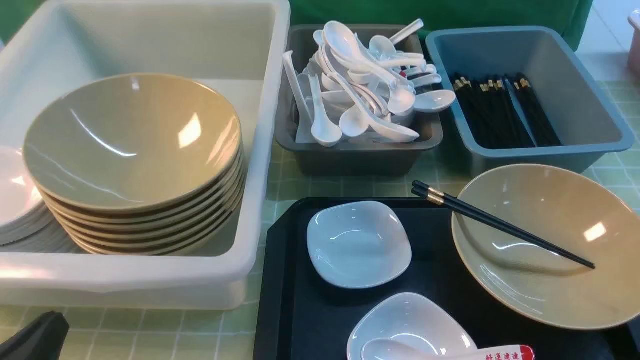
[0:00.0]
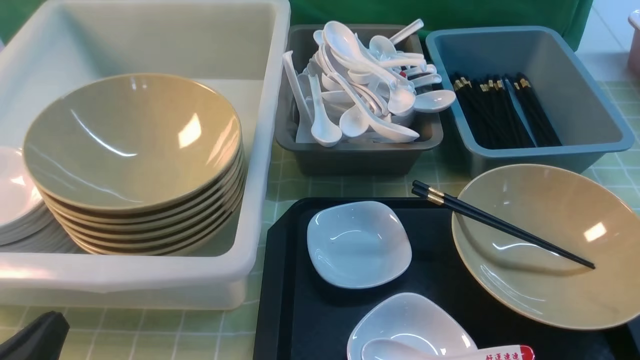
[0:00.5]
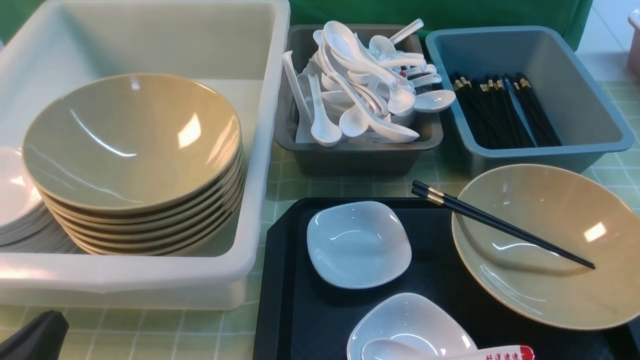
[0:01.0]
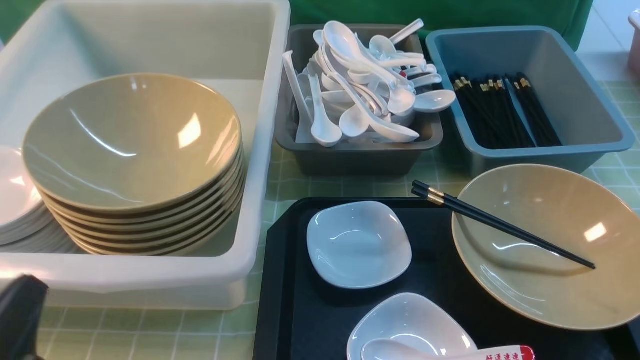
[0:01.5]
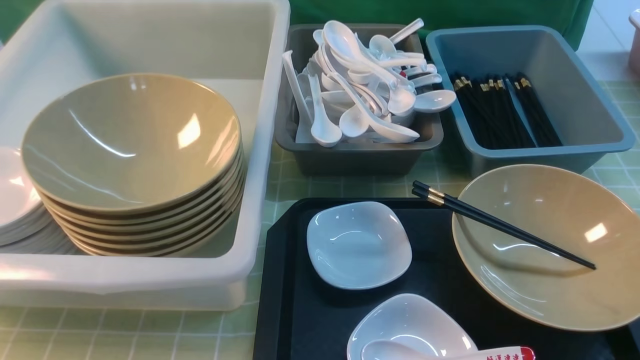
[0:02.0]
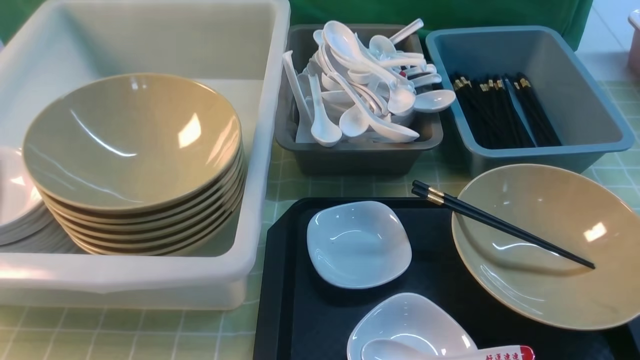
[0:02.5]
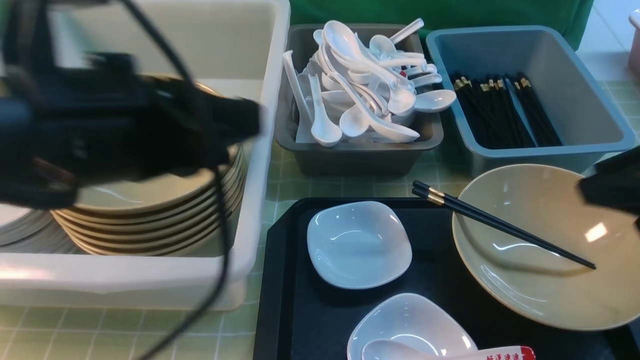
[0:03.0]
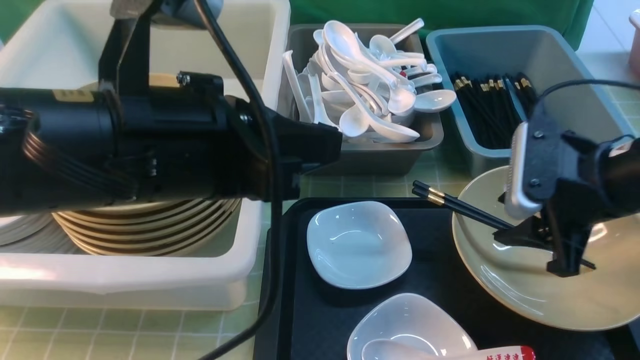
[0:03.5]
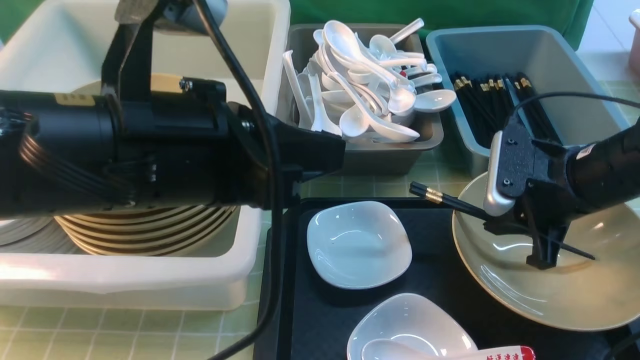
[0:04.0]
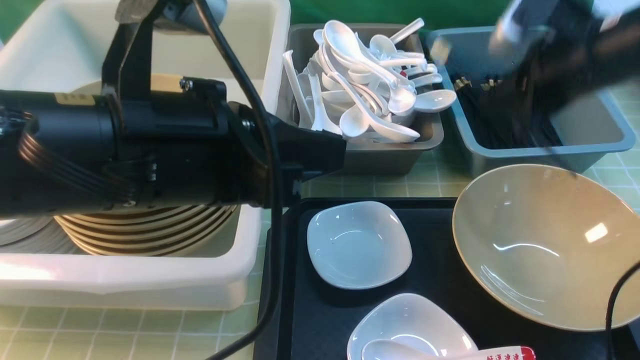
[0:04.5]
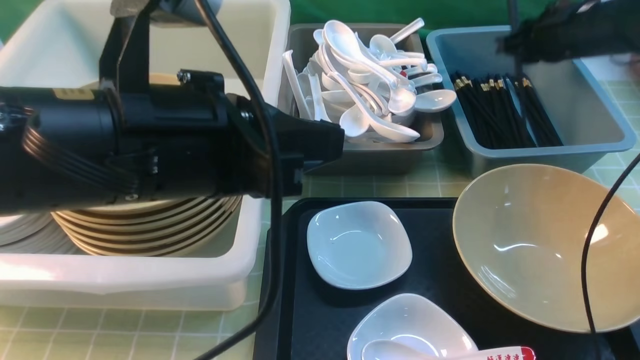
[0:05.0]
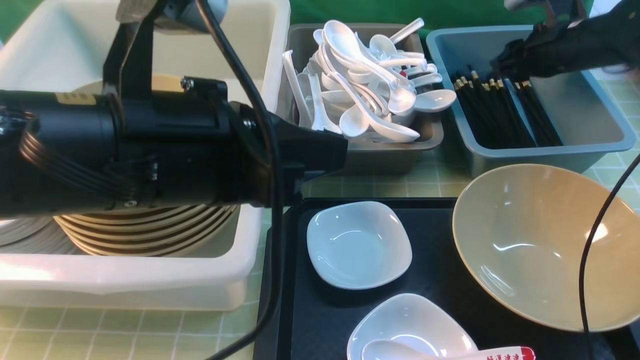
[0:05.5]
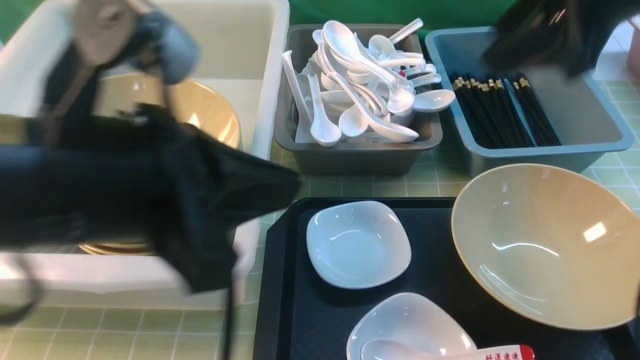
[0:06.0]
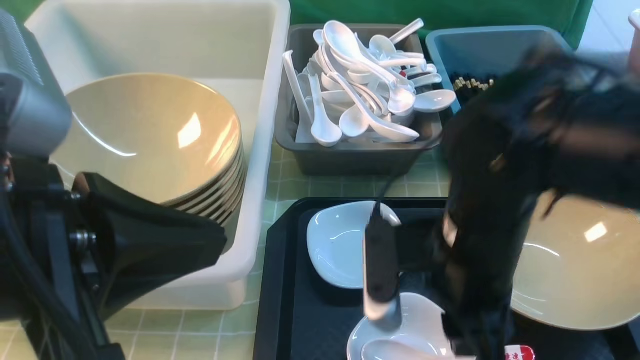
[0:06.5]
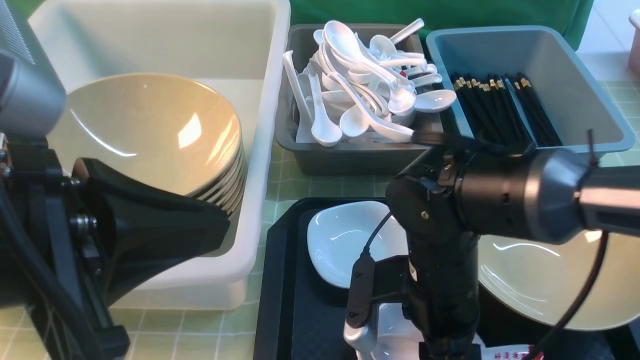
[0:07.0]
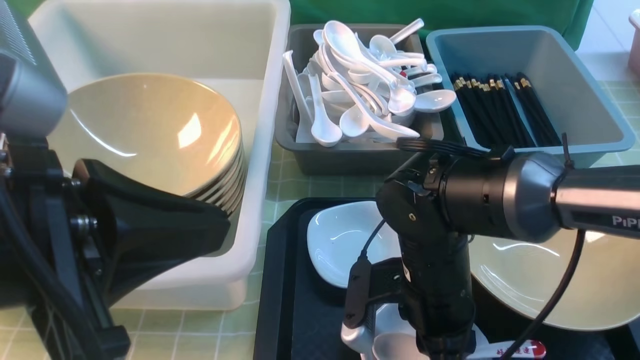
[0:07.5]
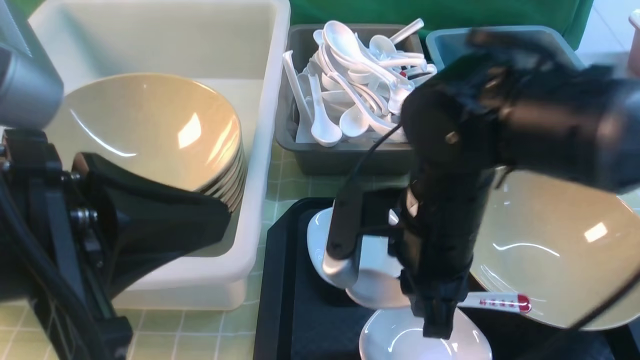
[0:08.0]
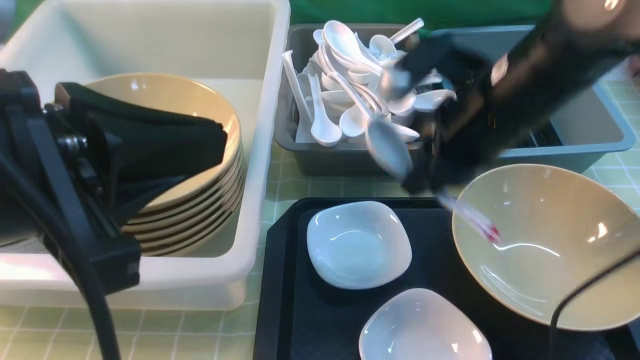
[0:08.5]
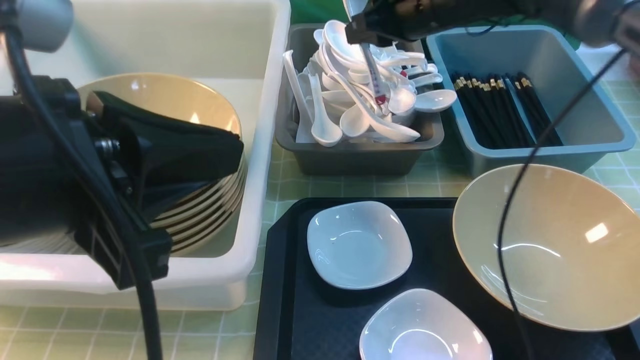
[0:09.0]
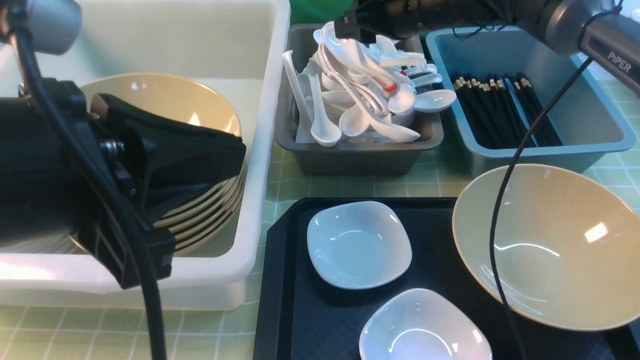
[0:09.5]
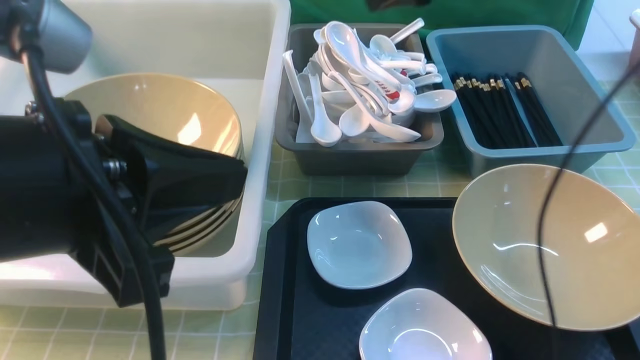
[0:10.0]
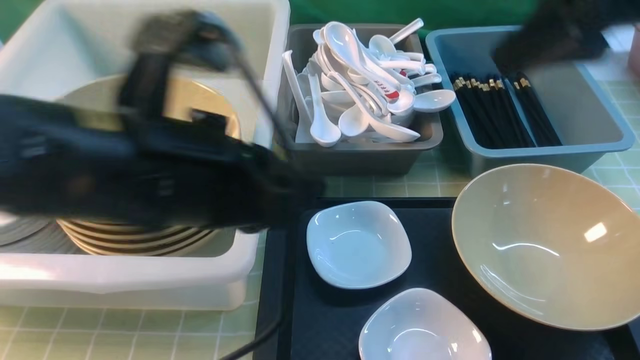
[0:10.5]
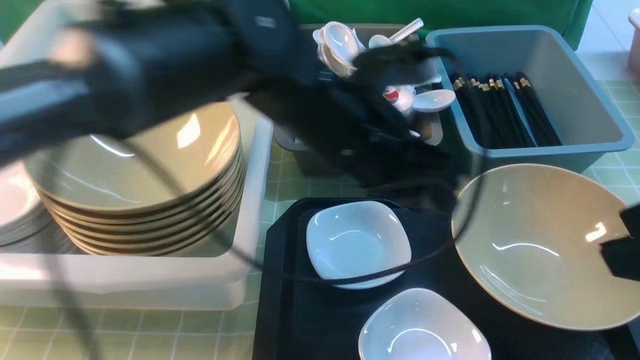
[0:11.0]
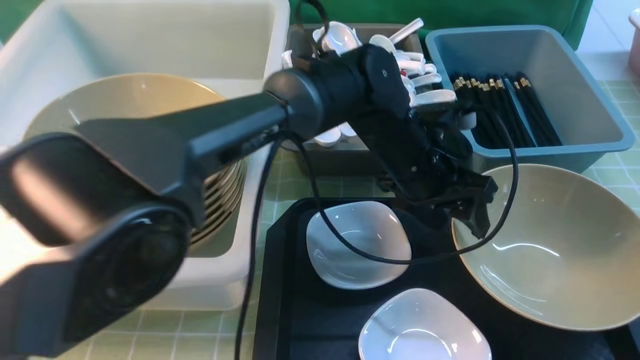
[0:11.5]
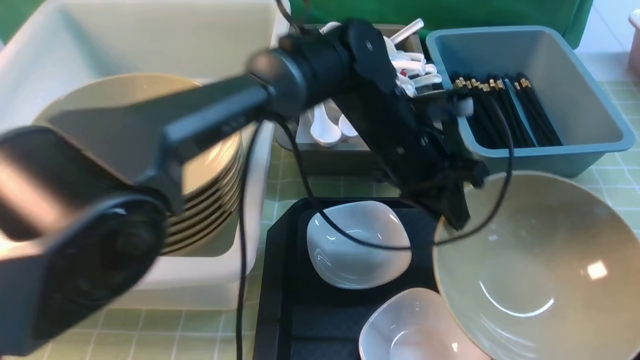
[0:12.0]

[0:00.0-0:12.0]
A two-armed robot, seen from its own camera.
Task of the whole recording: on green table put chopsticks spoon bowls plates into blue grey white boxes.
Step, 0.0 to 4.5 s: use the right arm to grab the chopsticks.
Step, 5.0 to 5.5 s: use the right arm to put the chopsticks into the small storage box on the right.
Step, 6.0 to 7.5 s: use the right arm to grab the soup spoon in the middle.
Step, 8.0 to 9.5 s: use the right arm to put the soup spoon into the small storage box in the middle.
0.0 to 2.0 s: The grippers both shift upward by some 15 cm.
2.0 to 4.0 s: The left gripper heads to the right and forward, covering roughly 20 cm. Meanwhile the right gripper shifts roughly 30 cm forward.
4.0 to 6.0 s: The right gripper is displaced upward by about 15 cm, and moves approximately 15 cm forward and comes back.
6.0 to 8.0 s: The right gripper shifts roughly 20 cm downward, to the left and backward, and closes up.
8.0 to 10.0 s: The right gripper goes some 25 cm forward, upward and to the right, and opens.
10.0 to 12.0 s: The left gripper goes about 35 cm forward, to the right and downward, and opens, then closes again. Meanwhile the right gripper moves backward, roughly 35 cm, and closes its fingers.

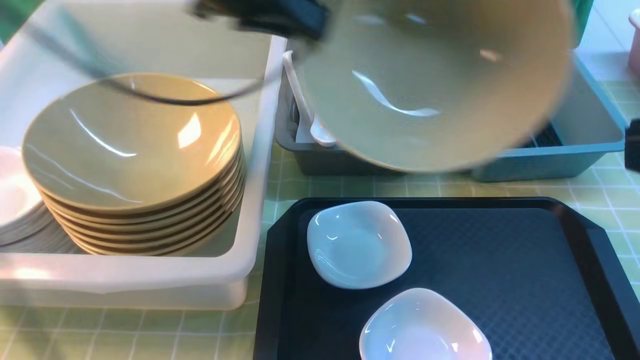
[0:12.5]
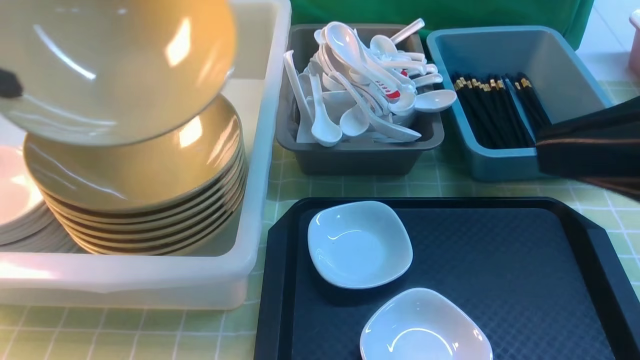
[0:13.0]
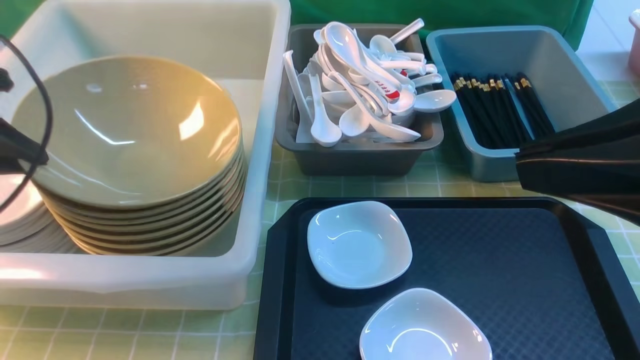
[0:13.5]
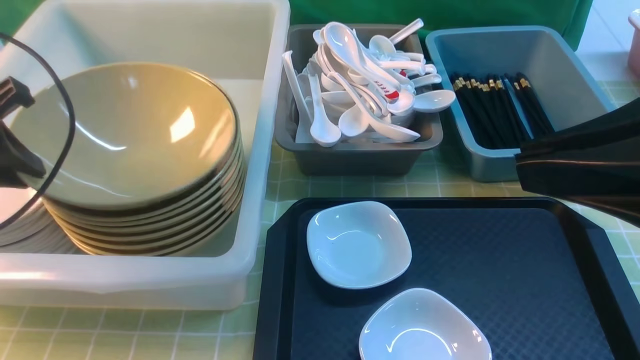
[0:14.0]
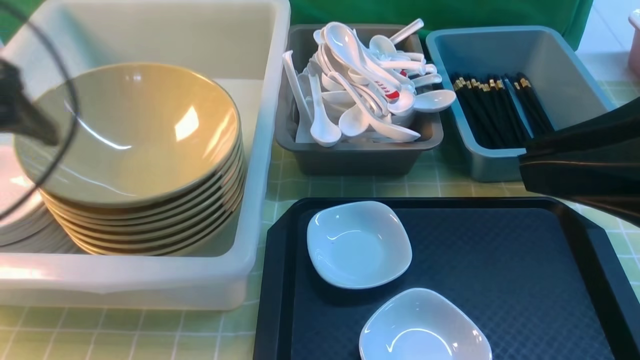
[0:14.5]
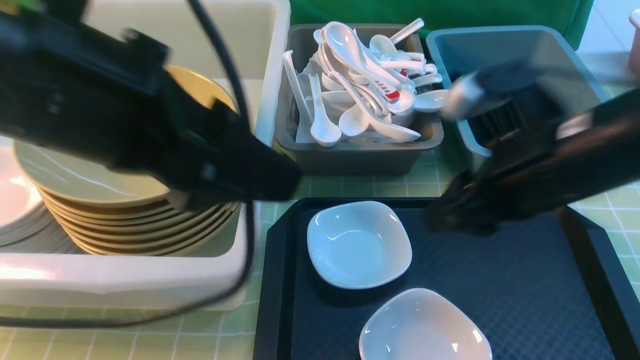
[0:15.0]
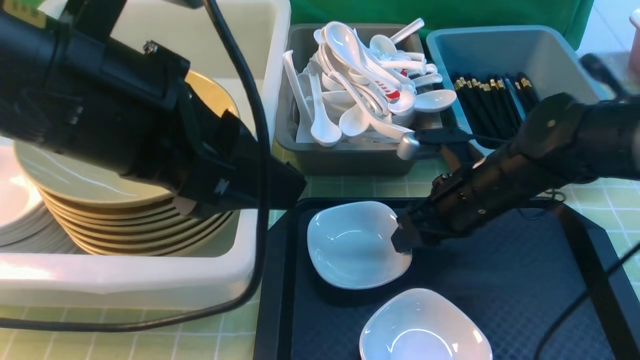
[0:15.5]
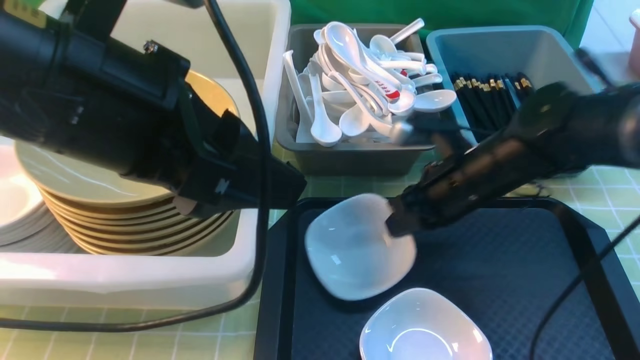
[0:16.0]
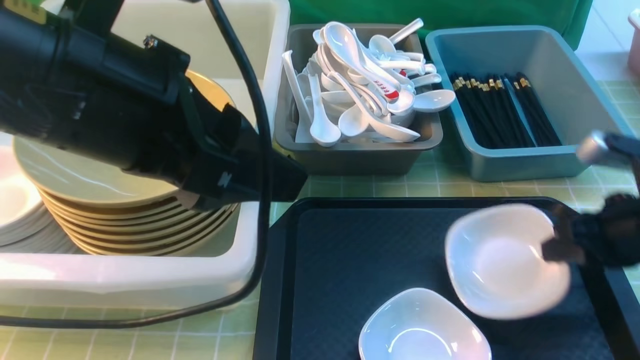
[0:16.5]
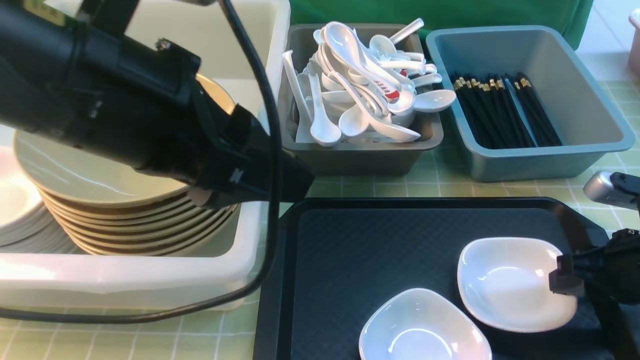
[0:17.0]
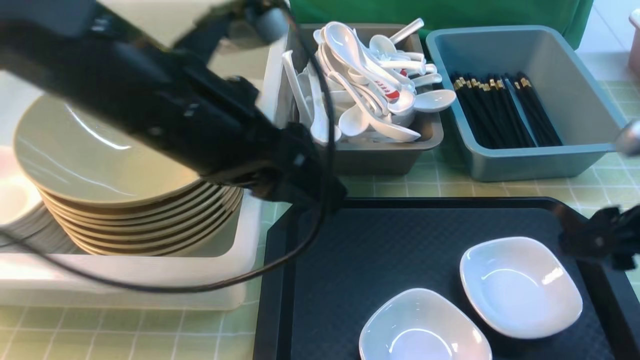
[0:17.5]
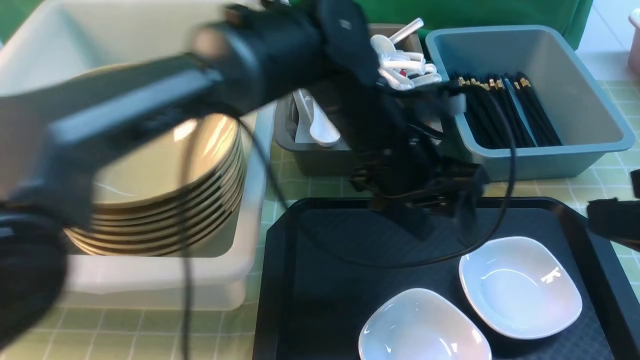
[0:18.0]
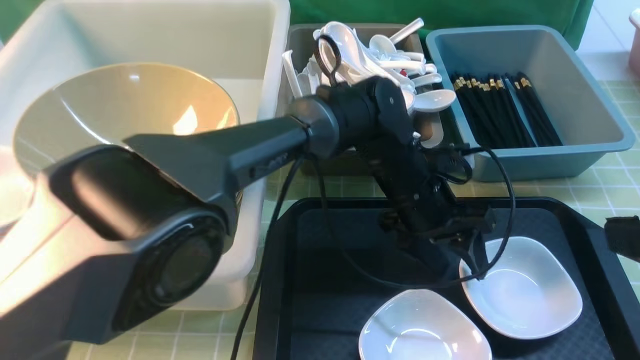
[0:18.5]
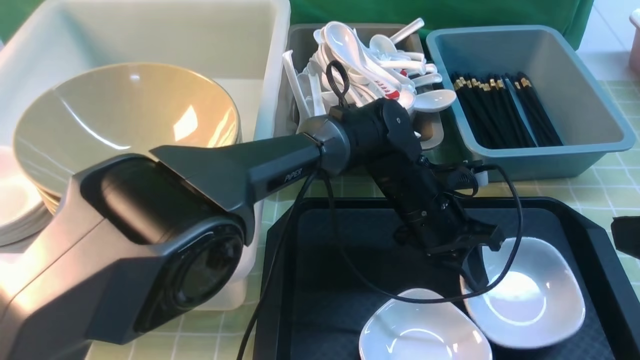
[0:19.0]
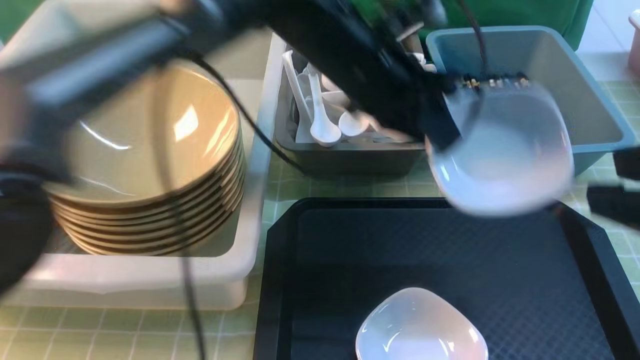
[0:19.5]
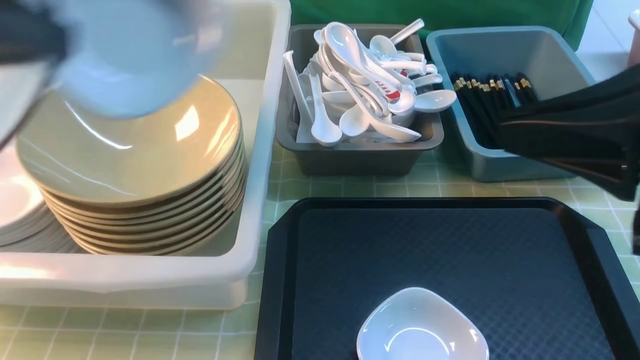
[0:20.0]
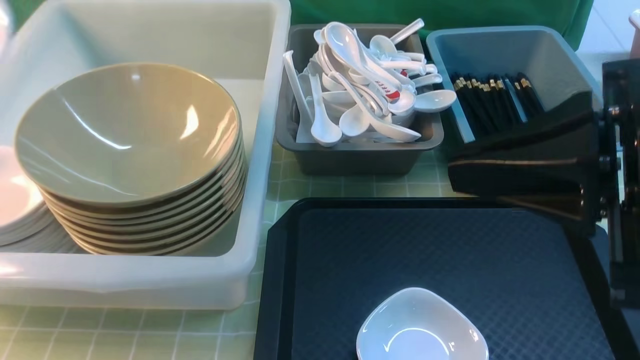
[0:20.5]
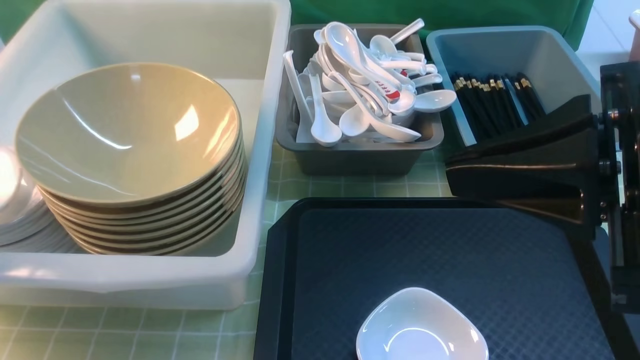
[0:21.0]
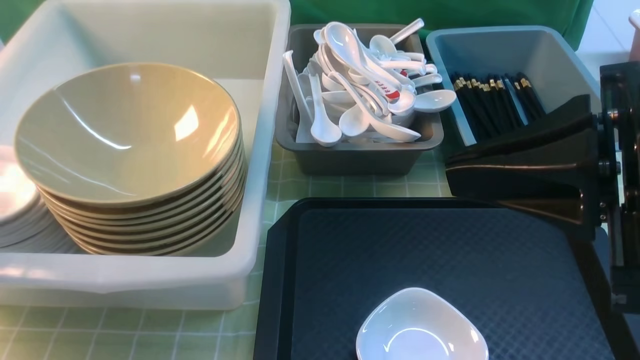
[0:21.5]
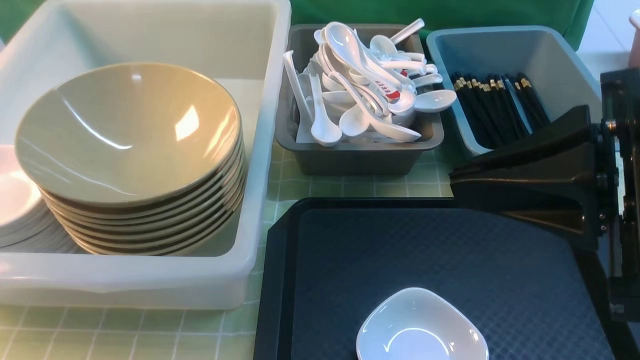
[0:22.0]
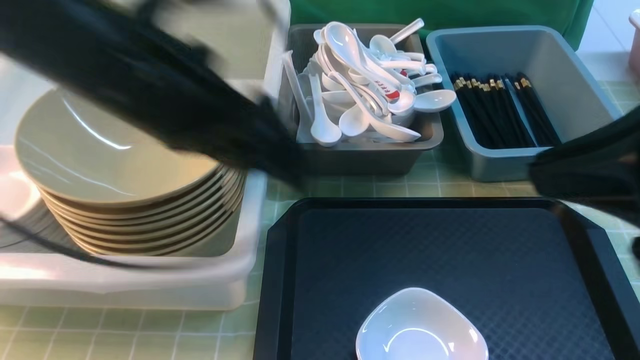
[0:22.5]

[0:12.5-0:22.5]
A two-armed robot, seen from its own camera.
Task of the whole recording: on green table put chopsticks spoon bowls plates into blue grey white boxes.
Step, 12.5 to 14.5 s: use the left arm to put the noodle bowl into the large storage box on the left.
Step, 15.0 to 16.0 s: use the right arm to grab the plate.
Step, 16.5 to 17.5 s: use the right arm to put the plate on the tray.
Step, 18.0 to 19.0 s: use the left arm to grab the plate.
Step, 19.5 to 21.5 s: use the left arm to put the plate into the large storage box on the left.
12.5 to 14.5 s: The left gripper travels to the left and backward by approximately 15 cm, and opens its fingers. The right gripper changes place by some 5 cm.
14.5 to 16.5 s: The right gripper heads downward, forward and to the right, covering about 25 cm, and opens and closes again; the left gripper heads to the right, covering roughly 15 cm.
16.5 to 18.5 s: The right gripper shifts approximately 20 cm upward and backward, and opens up. The left gripper goes approximately 35 cm downward, to the right and forward.
18.5 to 20.5 s: The left gripper heads to the left and upward, covering roughly 50 cm, and closes. Meanwhile the right gripper is displaced to the left by roughly 10 cm, and closes.
20.5 to 22.5 s: The left gripper heads to the right, covering approximately 25 cm, and opens its fingers.
